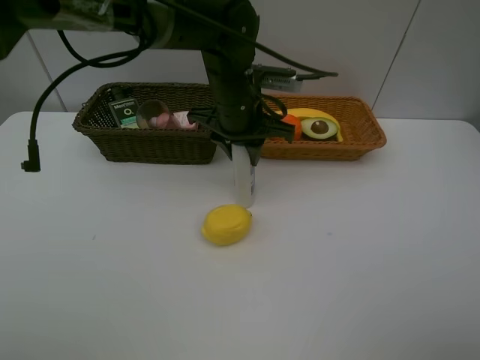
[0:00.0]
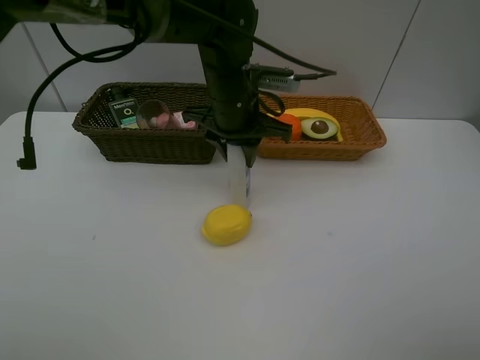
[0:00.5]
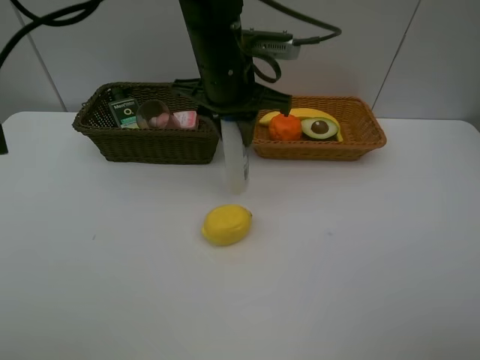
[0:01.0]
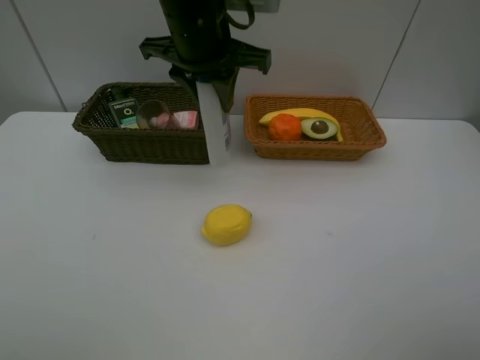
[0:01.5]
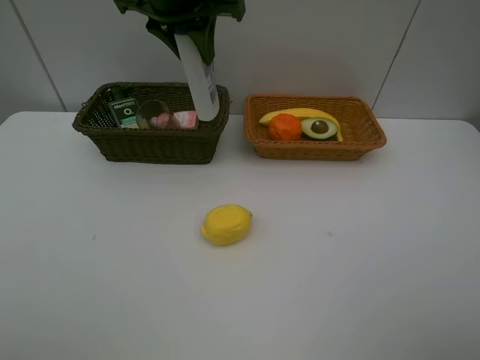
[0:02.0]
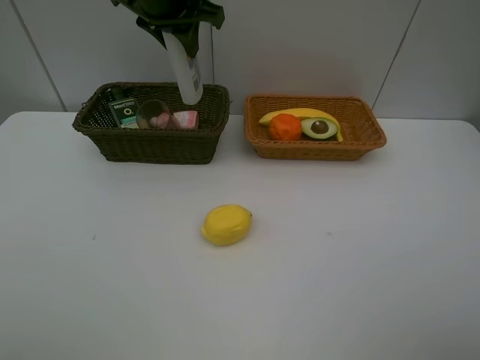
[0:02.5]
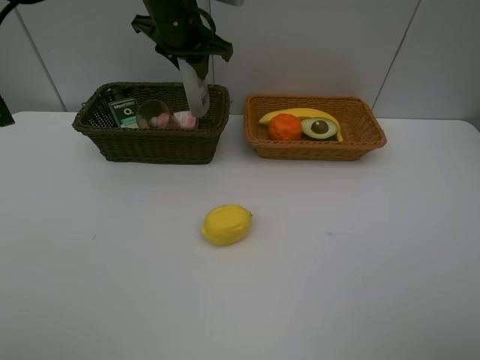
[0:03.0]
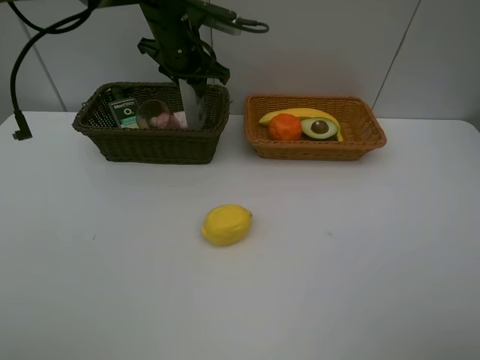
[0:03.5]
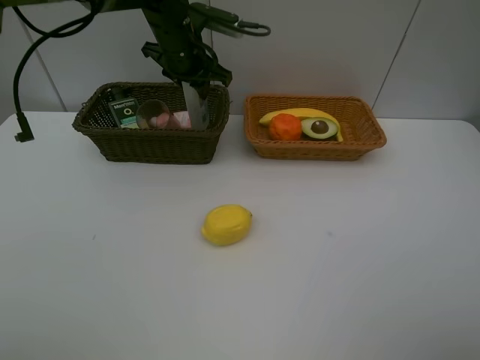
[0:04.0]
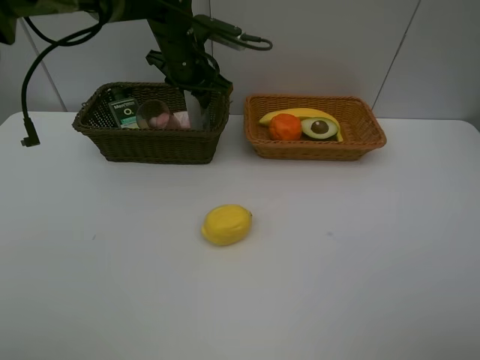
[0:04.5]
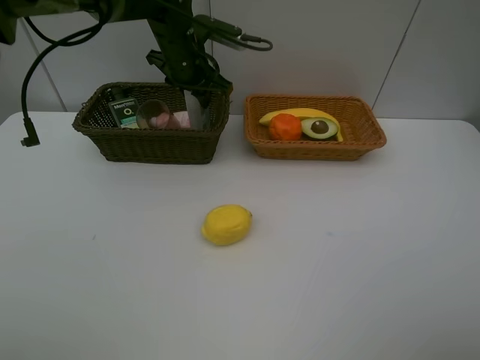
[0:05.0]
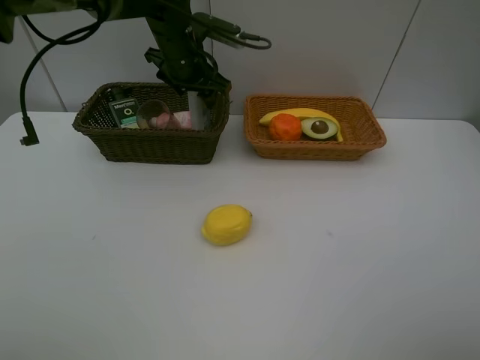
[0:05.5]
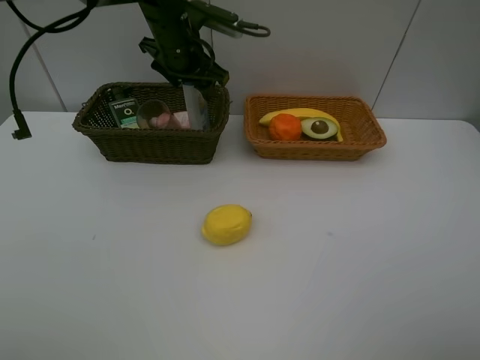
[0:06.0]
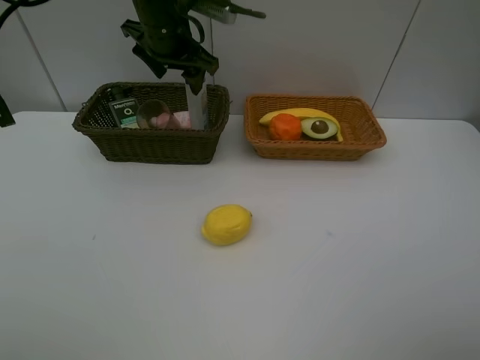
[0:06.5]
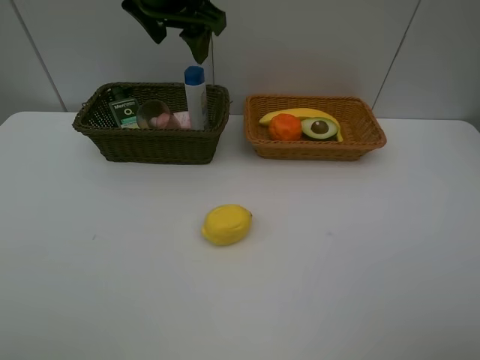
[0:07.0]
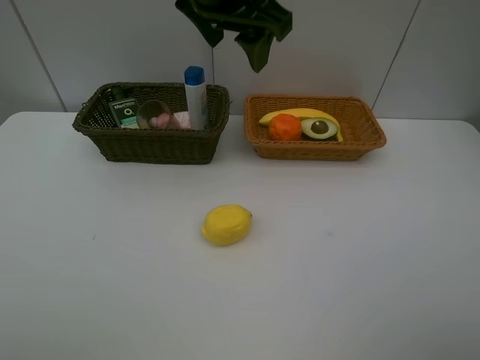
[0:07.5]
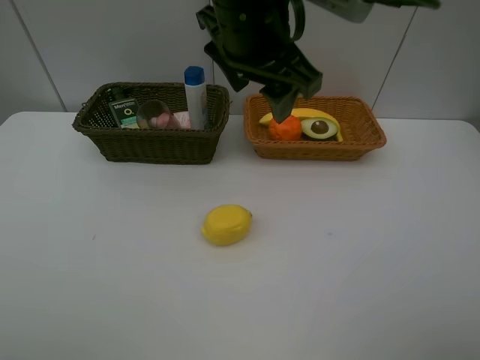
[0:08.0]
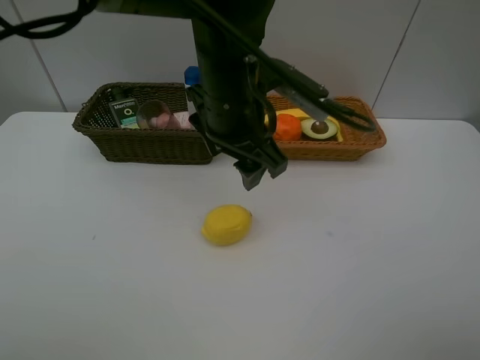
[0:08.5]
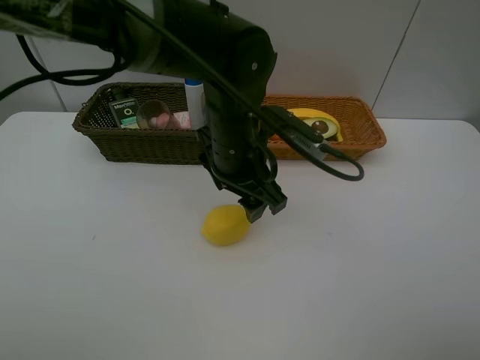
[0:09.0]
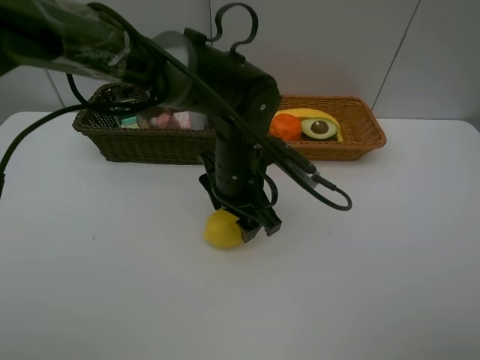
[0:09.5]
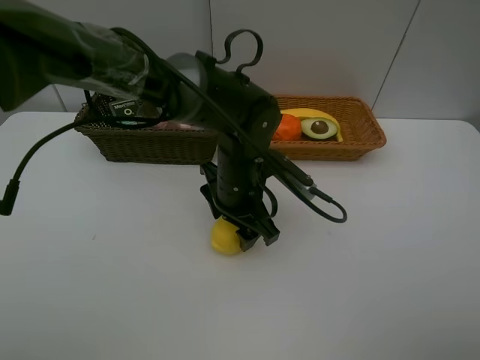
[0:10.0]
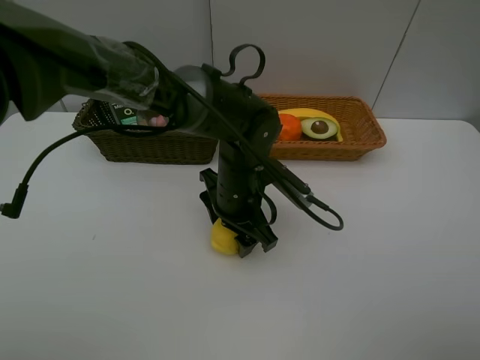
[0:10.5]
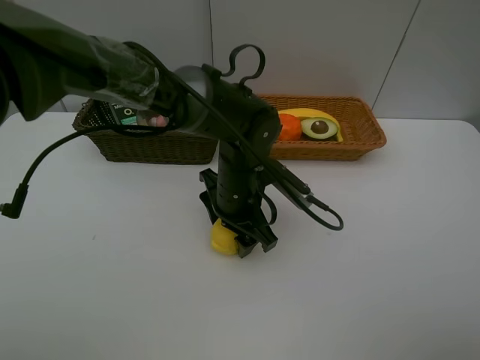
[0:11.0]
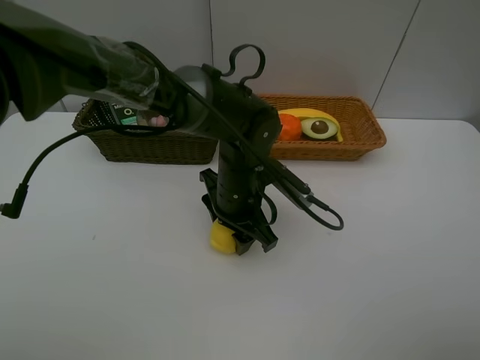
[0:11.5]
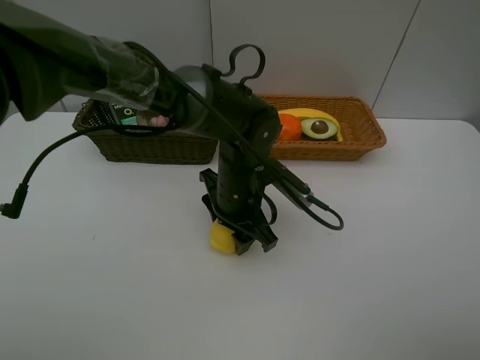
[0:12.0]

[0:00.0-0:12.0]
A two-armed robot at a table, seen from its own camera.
Task of the whole recording: Place multiple objects separately in different baskets.
Step, 0:01.0 to 0:06.0: Place the shampoo in the dark basket with left gripper.
0:00.0 to 0:02.0: The left gripper is displaced upward and to the left by roughly 15 cm.
0:02.0 to 0:04.0: The left gripper is displaced downward and forward by roughly 15 cm.
0:04.0 to 0:06.0: The left gripper opens its fingers.
0:06.0 to 0:08.0: The left gripper shifts roughly 20 cm backward, to the right and upward.
0:08.0 to 0:10.0: The left gripper shifts approximately 20 cm downward.
0:10.0 to 0:12.0: The two grippers keep their place.

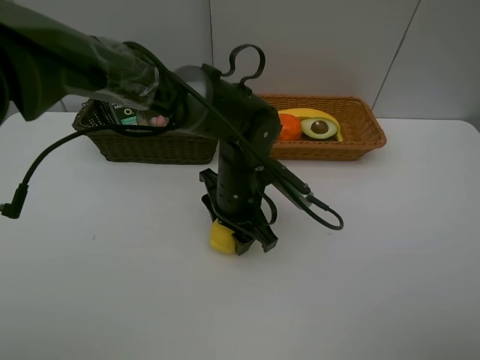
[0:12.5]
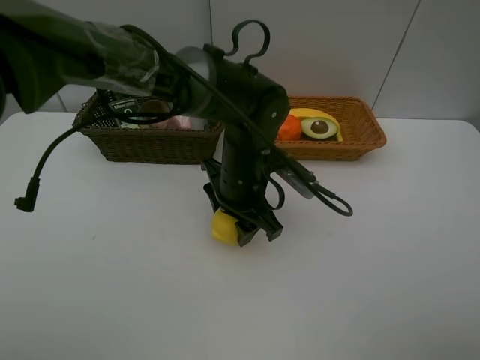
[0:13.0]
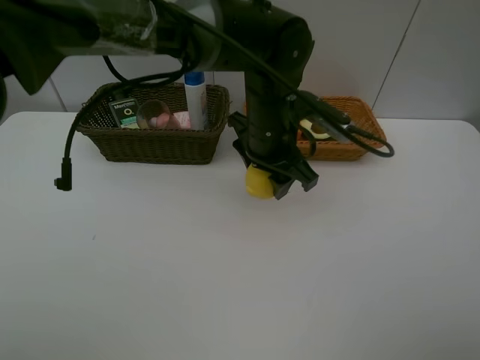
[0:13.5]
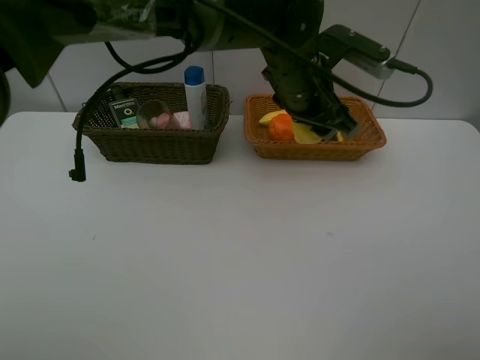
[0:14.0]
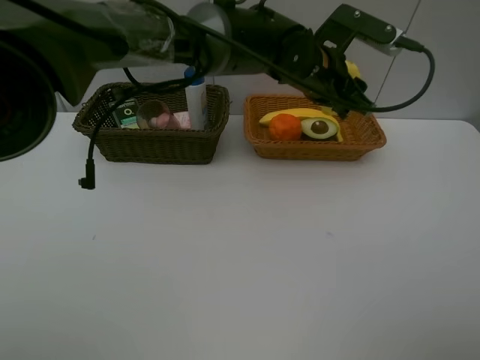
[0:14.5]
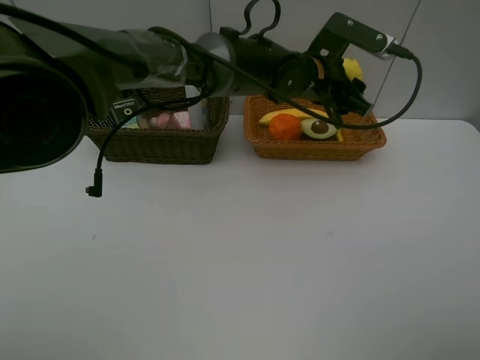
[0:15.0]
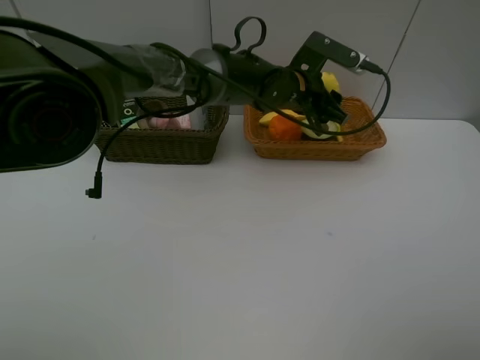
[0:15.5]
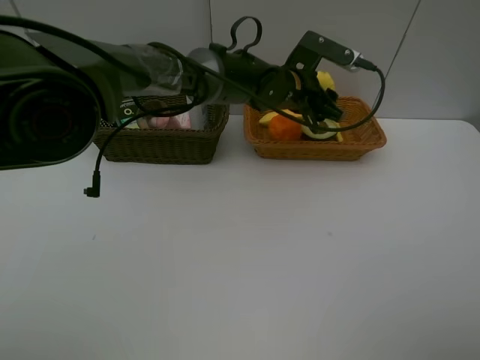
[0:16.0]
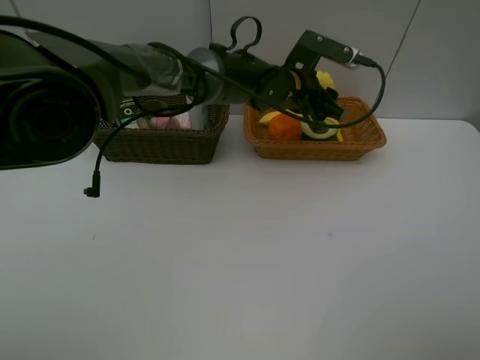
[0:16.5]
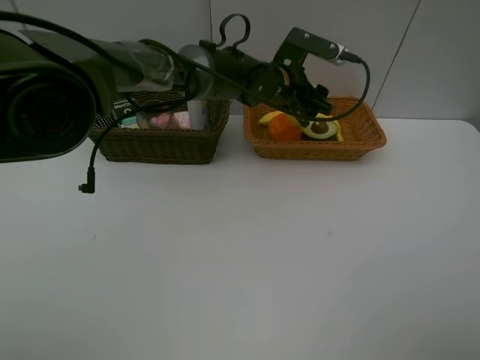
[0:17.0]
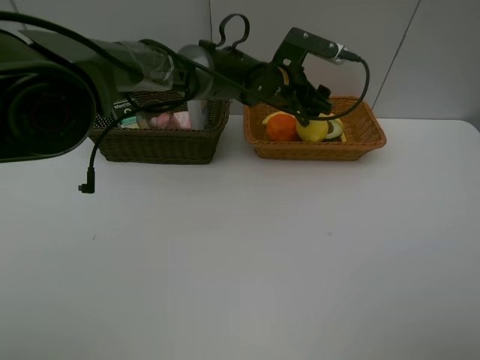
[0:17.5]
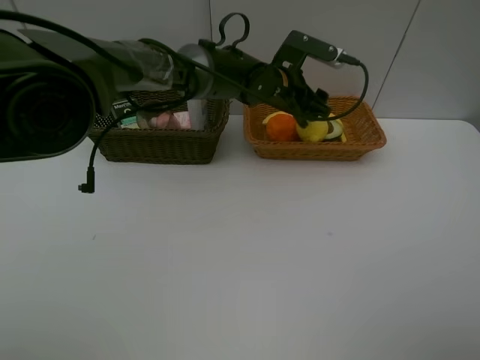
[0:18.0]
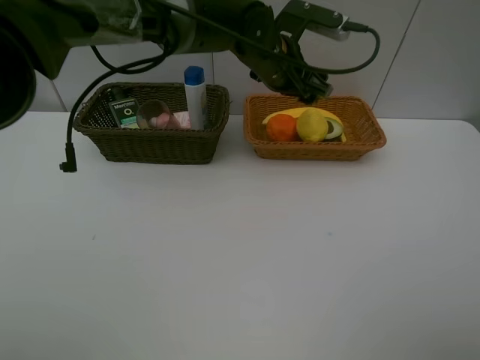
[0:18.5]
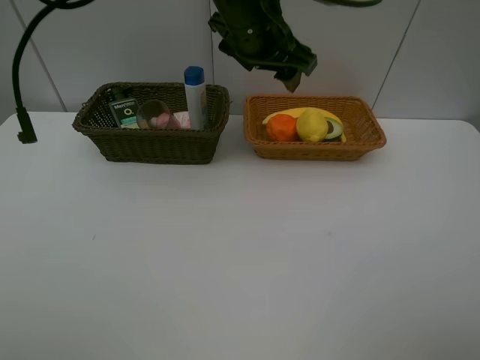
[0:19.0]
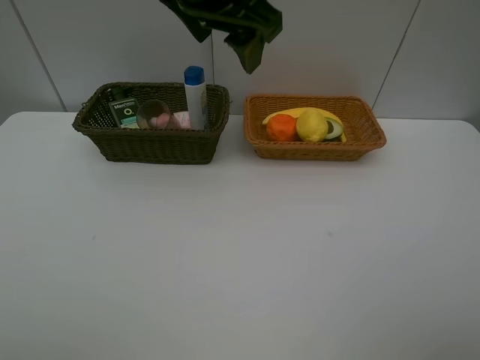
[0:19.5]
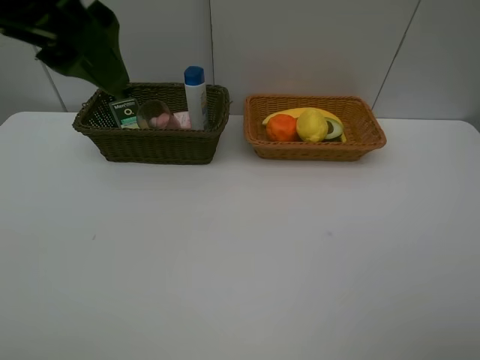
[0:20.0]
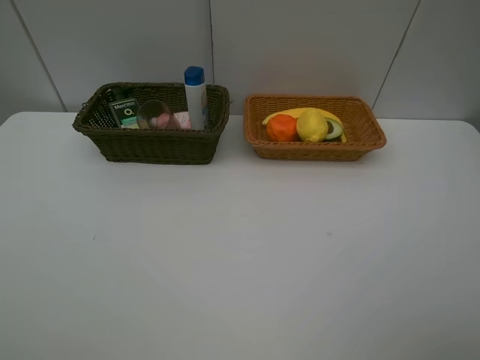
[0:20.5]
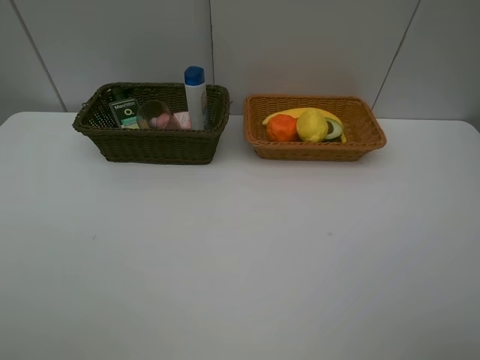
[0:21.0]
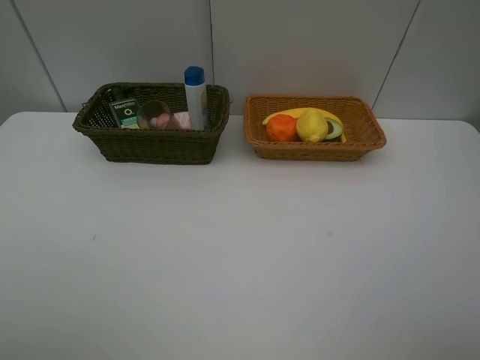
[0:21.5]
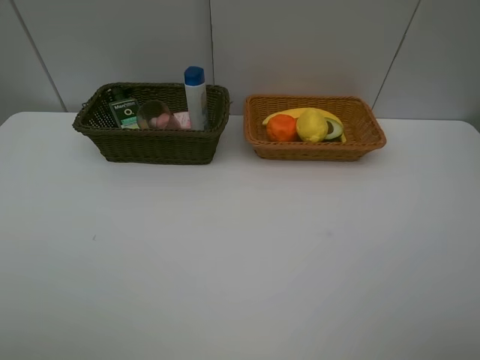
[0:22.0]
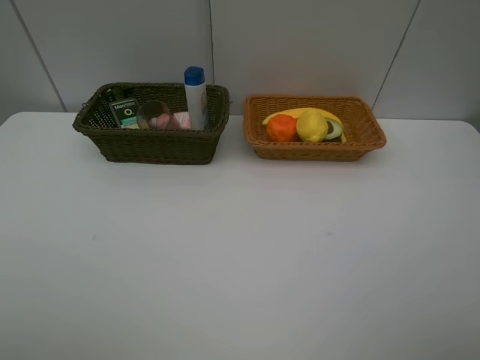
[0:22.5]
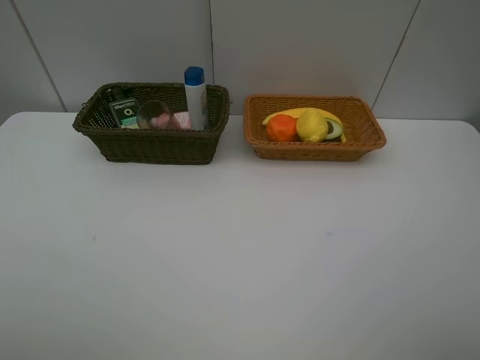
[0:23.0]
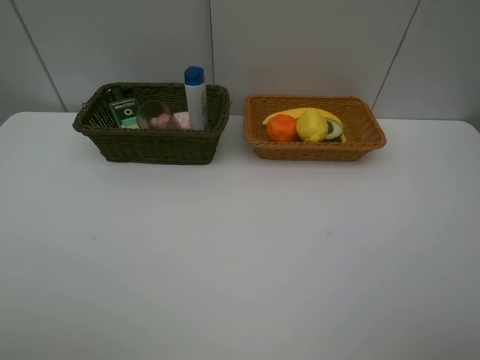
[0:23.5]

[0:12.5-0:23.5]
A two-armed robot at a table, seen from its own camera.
Task of the whole recording: Place multiple objects separately in different baskets.
Step, 0:13.5 to 0:18.5: Place the lemon in the light basket with left gripper.
0:12.5 to 0:14.5: The left gripper moves upward, forward and to the right, about 15 cm.
0:14.5 to 0:16.0: The left gripper changes place by roughly 5 cm.
0:16.0 to 0:18.0: The grippers make only small movements.
0:18.0 to 0:20.0: The left gripper goes roughly 40 cm backward, upward and to the left.
0:20.0 to 0:21.5: The left gripper moves backward, to the left and downward, approximately 25 cm.

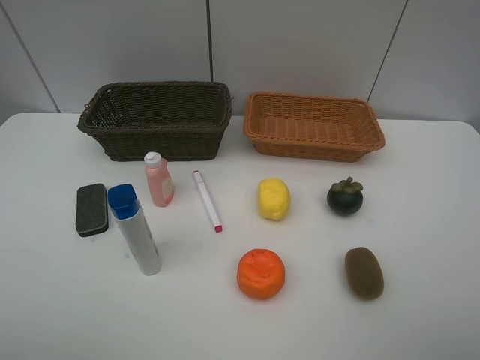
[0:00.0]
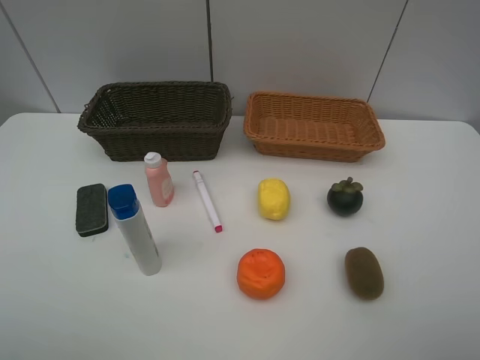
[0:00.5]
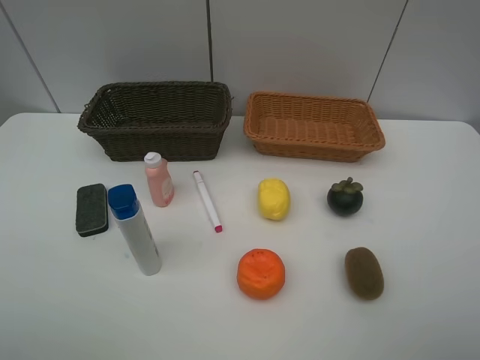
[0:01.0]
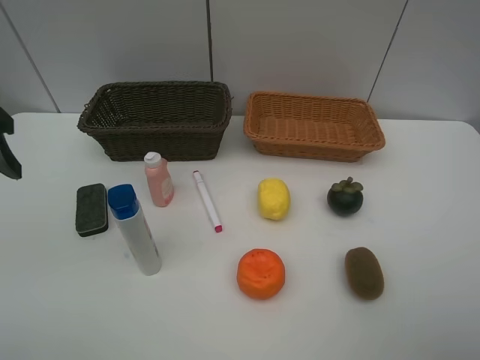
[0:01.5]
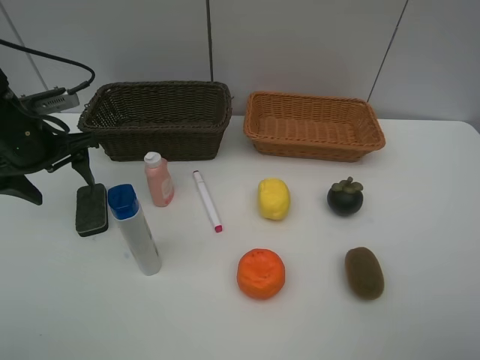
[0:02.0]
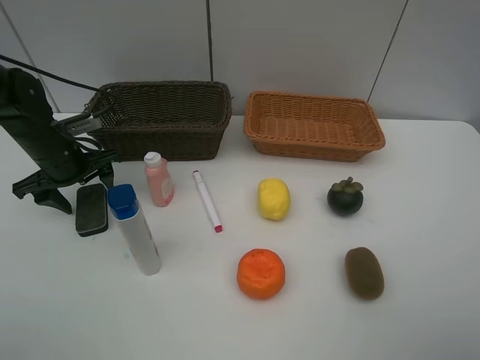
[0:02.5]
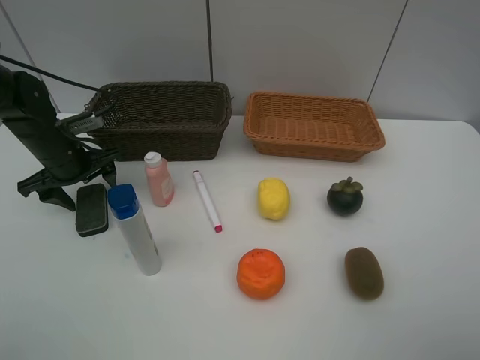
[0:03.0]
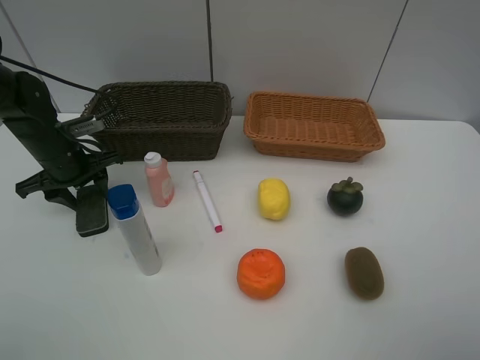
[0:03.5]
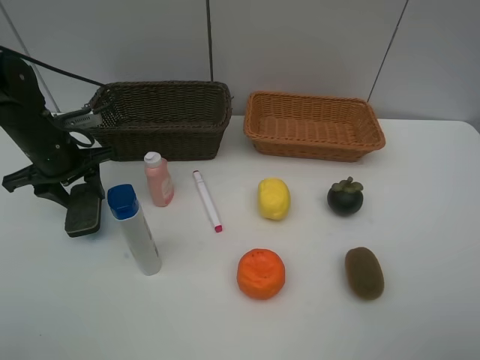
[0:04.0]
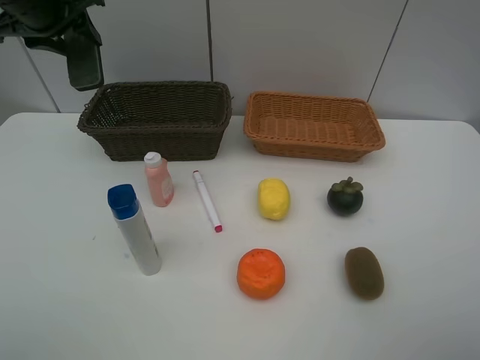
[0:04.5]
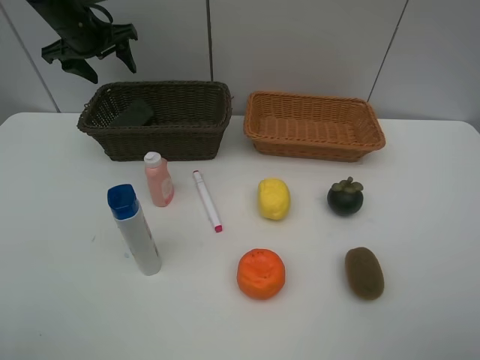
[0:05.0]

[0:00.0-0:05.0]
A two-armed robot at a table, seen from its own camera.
Task of the whole recording: Place multiple objects separately in different baskets.
Step, 0:00.0 to 0:04.0: Pick up blackboard eraser with left gripper.
0:00.0 to 0:02.5: The left gripper shifts about 40 cm forward and downward.
0:02.5 to 0:05.0: The left gripper shifts roughly 20 cm forward and upward, and closes and opens again.
